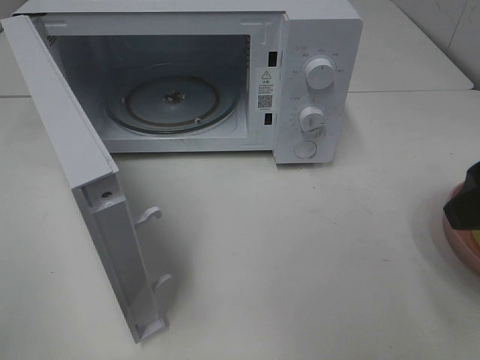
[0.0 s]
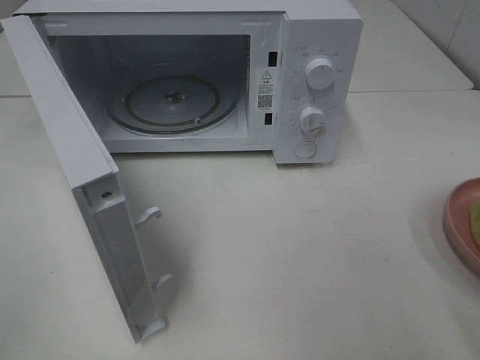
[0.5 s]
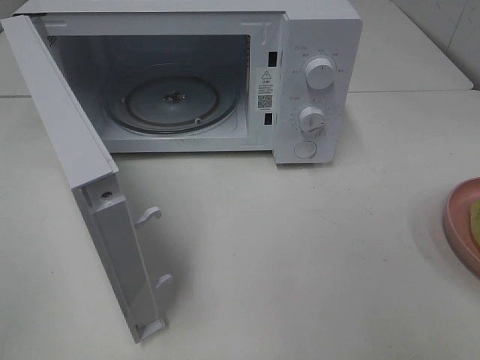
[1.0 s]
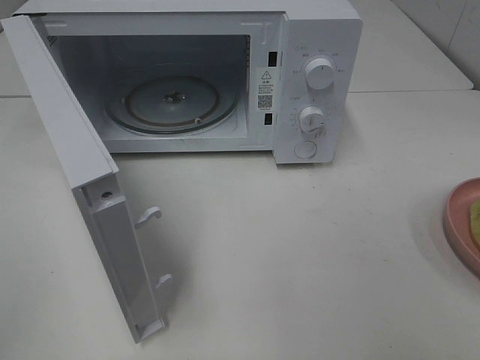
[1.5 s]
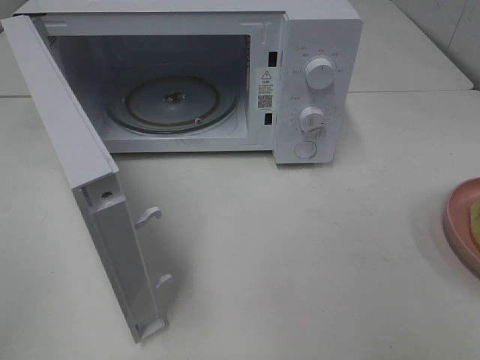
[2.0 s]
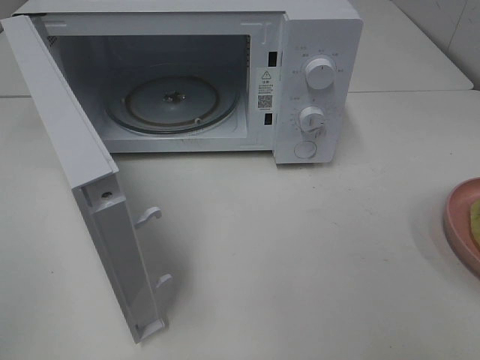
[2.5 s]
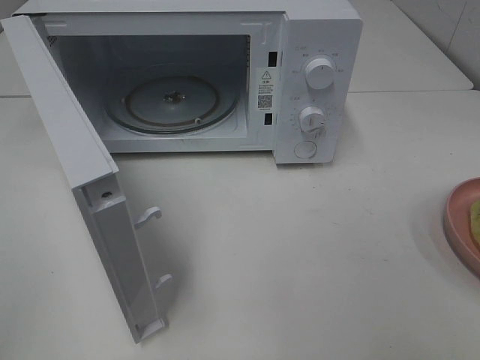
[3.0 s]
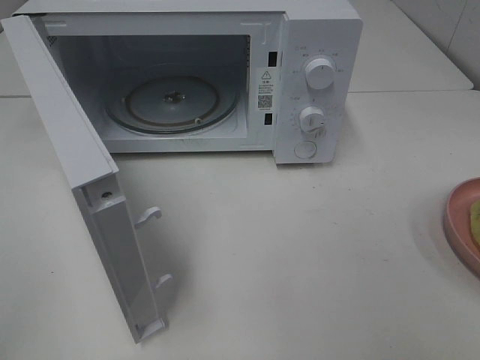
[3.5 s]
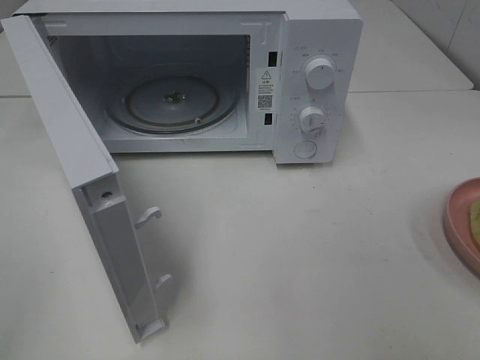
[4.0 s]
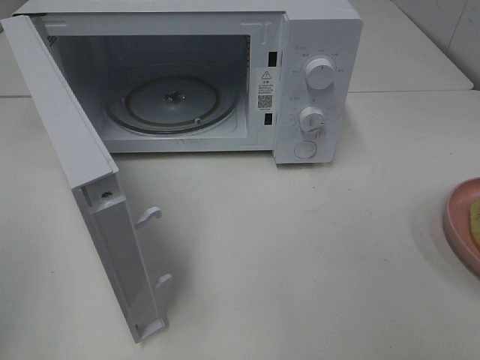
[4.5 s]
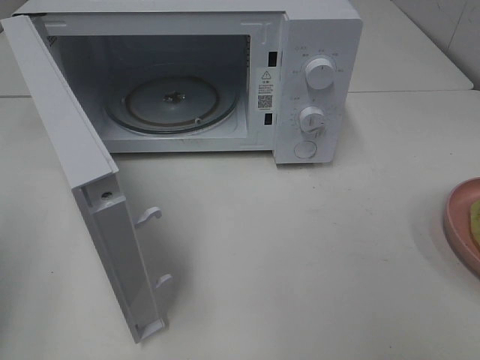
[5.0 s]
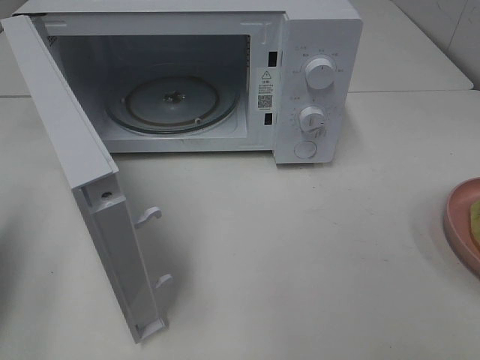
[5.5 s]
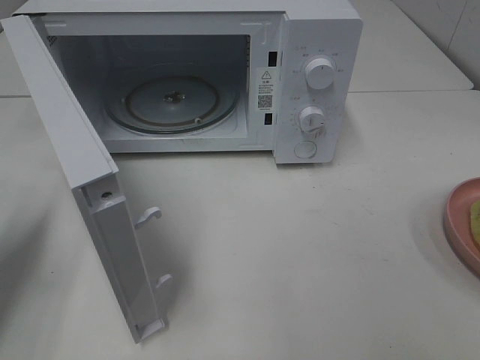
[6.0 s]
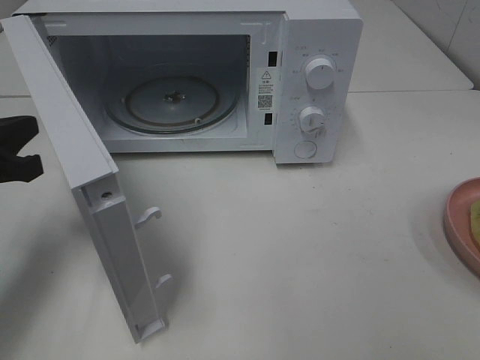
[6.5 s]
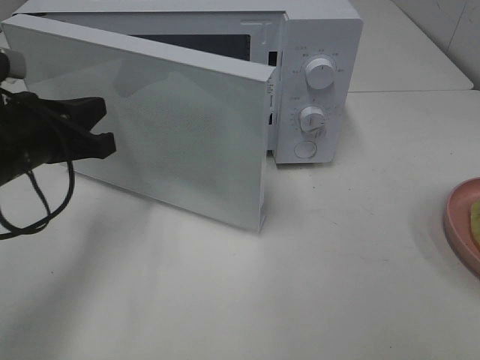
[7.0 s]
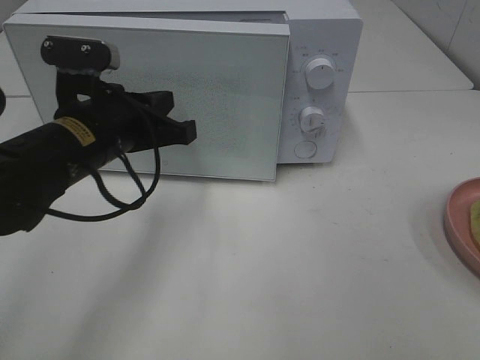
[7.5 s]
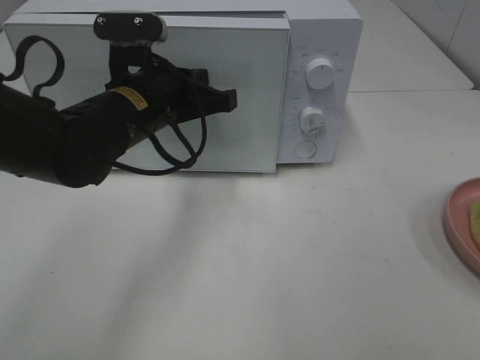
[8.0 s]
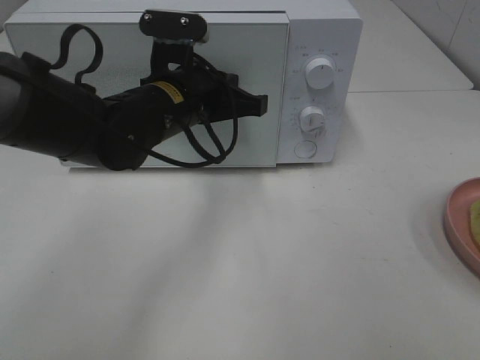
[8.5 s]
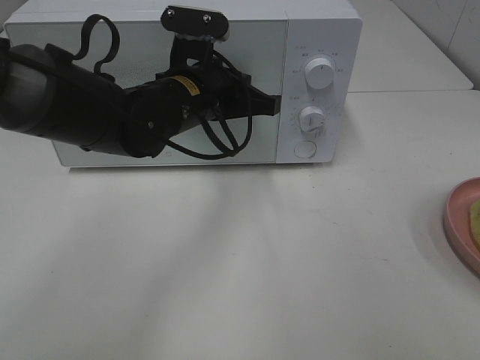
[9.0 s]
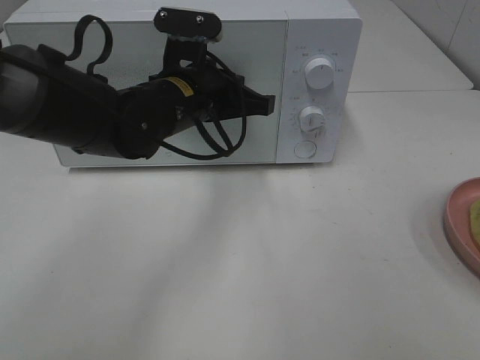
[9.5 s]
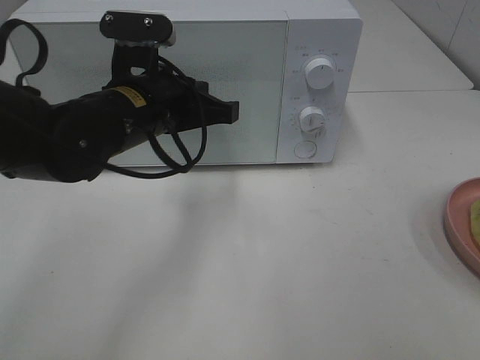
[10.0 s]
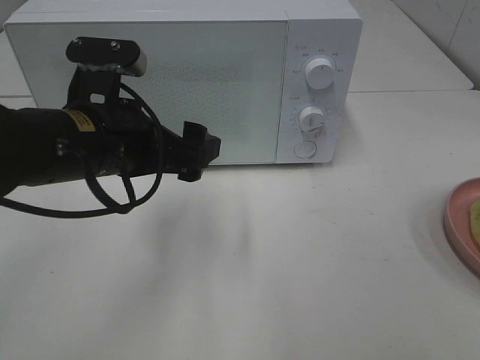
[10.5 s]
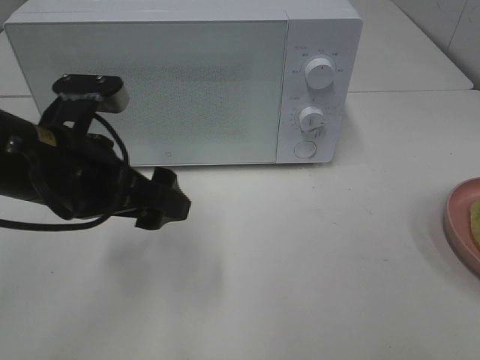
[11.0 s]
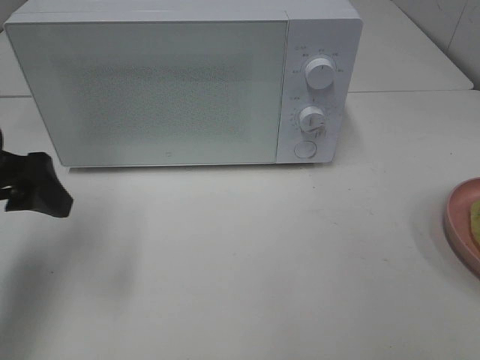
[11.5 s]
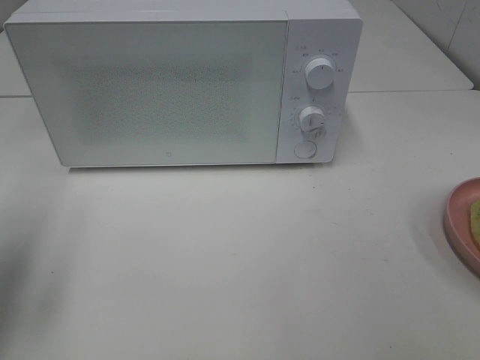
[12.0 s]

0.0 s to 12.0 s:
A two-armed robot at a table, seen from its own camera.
Task of the whole recording: Heat Sandwich.
Step, 0.0 to 9.5 s: Left hand: close the microwave door.
0.0 to 2.0 s: The right gripper moves backward, roughly 15 cm.
4.0 to 6.0 s: The left gripper moves forward and downward, roughly 25 cm, and closes up.
6.0 to 8.0 s: The left gripper shifts roughly 25 cm to the right and forward.
8.0 to 10.0 s: The grippers move only a little.
10.0 to 12.0 s: The left gripper goes roughly 25 cm to the left and backward, and opens.

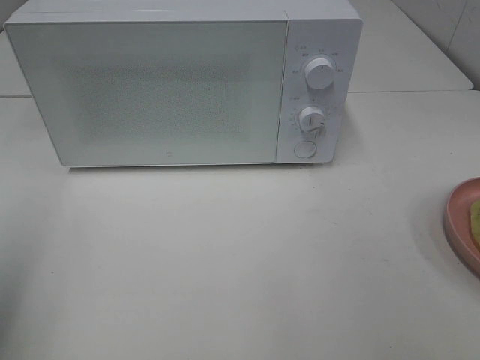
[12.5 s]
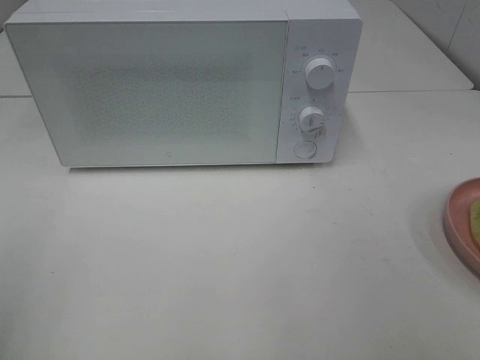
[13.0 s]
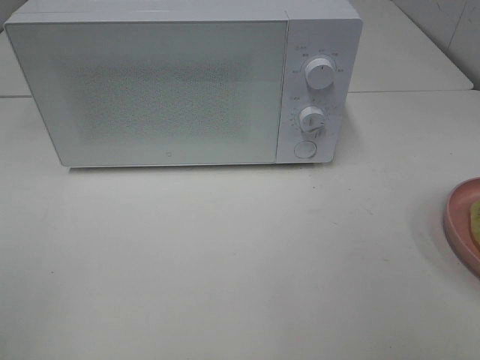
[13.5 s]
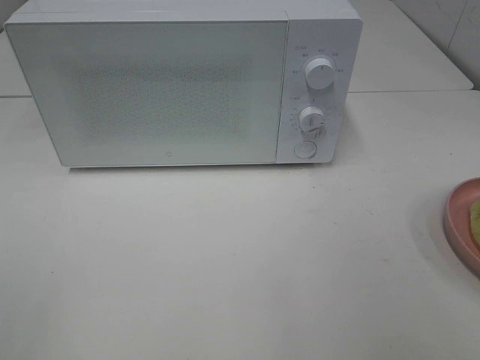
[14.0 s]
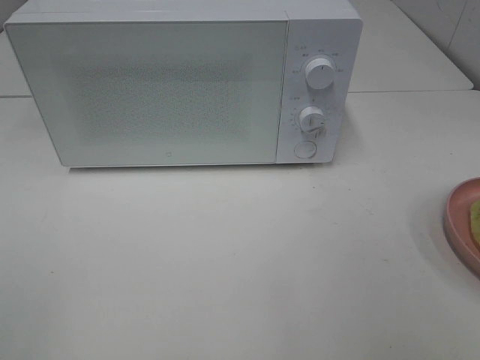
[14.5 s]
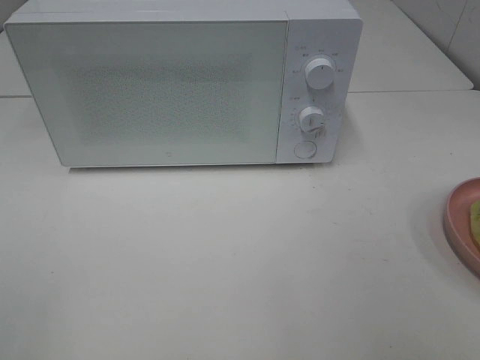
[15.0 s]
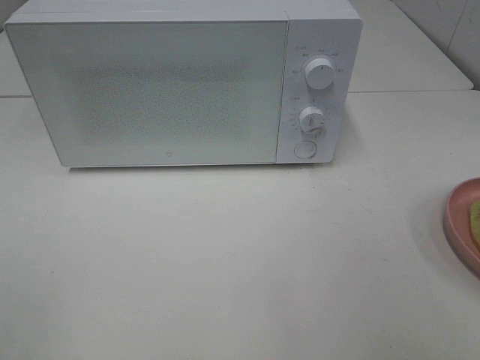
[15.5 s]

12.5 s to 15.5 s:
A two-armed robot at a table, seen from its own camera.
Task of the whole recording: Heat Sandwich.
12.5 to 14.0 s: The left gripper heads backward, covering roughly 15 cm.
14.0 to 15.5 s: Both grippers stay about where they are.

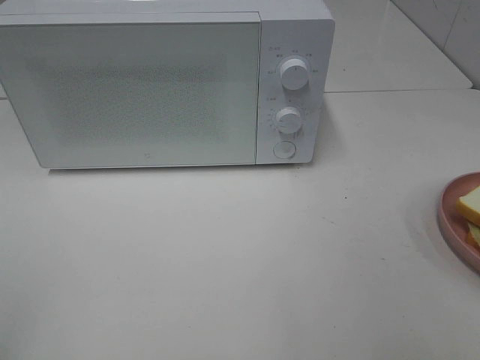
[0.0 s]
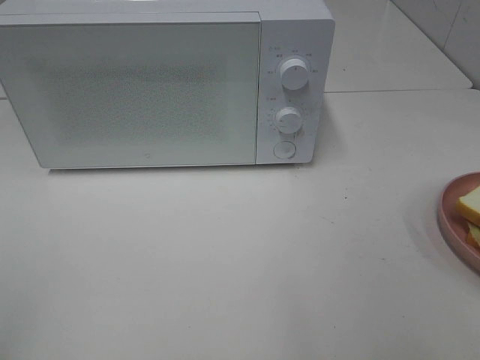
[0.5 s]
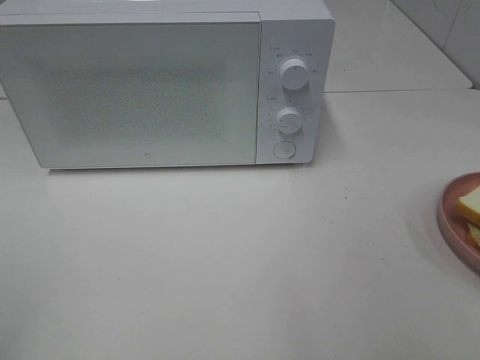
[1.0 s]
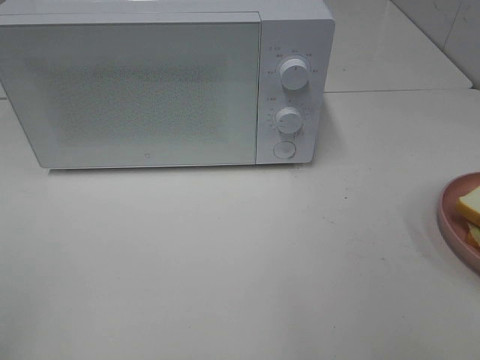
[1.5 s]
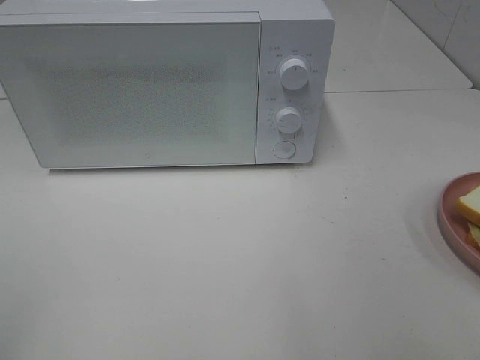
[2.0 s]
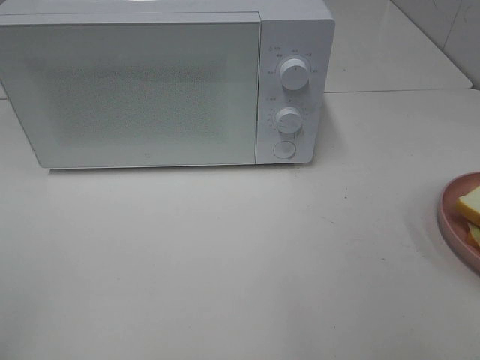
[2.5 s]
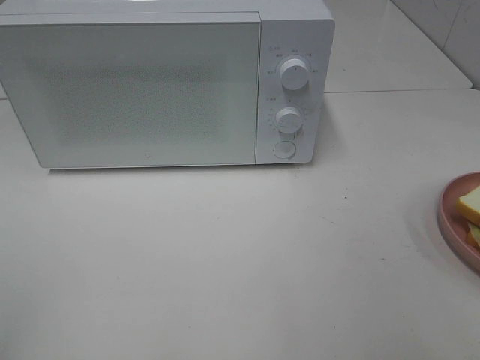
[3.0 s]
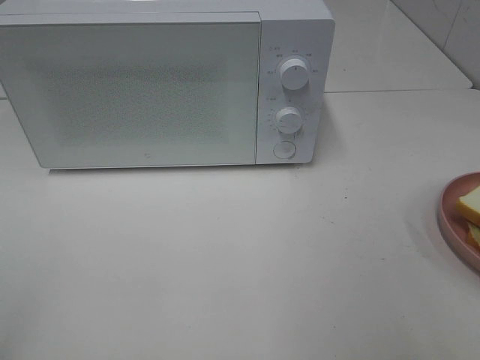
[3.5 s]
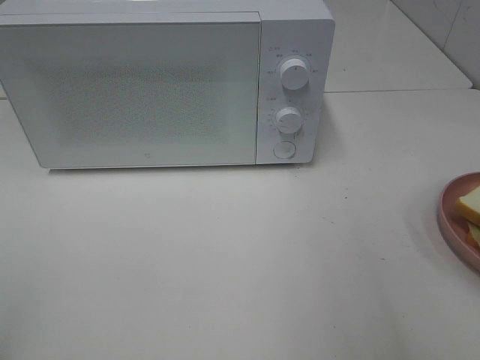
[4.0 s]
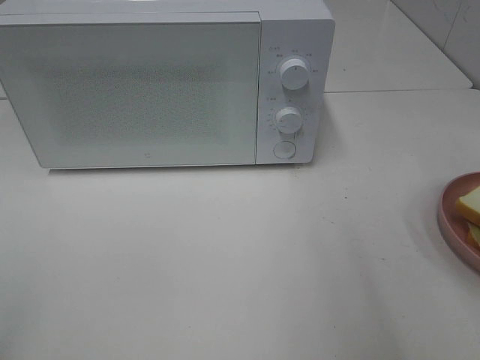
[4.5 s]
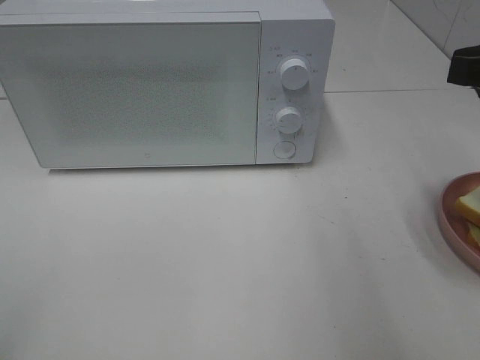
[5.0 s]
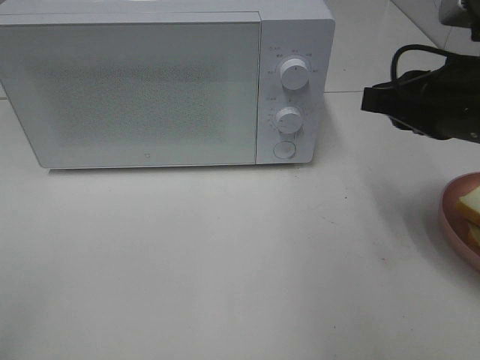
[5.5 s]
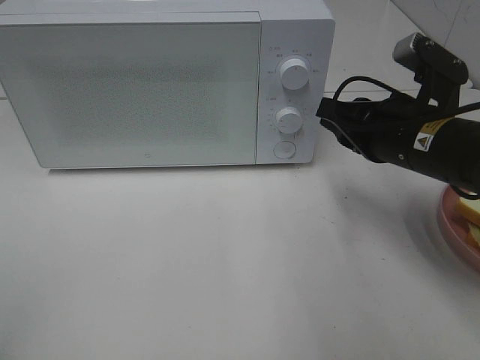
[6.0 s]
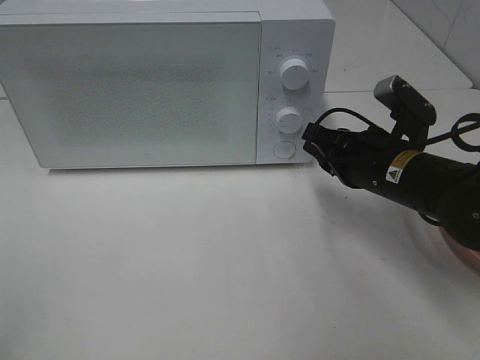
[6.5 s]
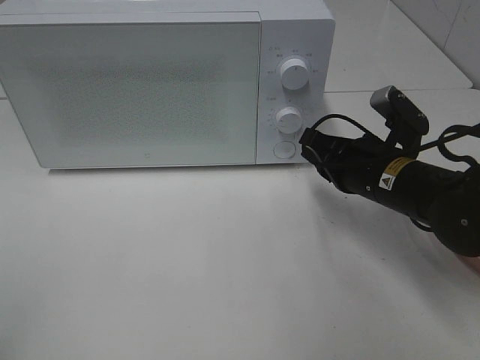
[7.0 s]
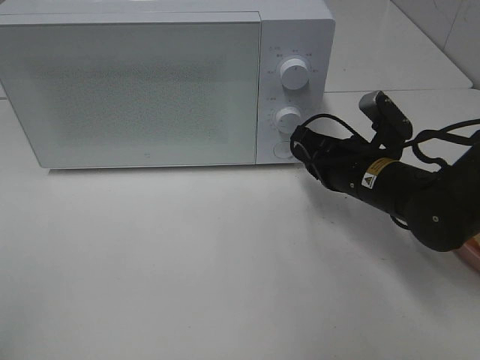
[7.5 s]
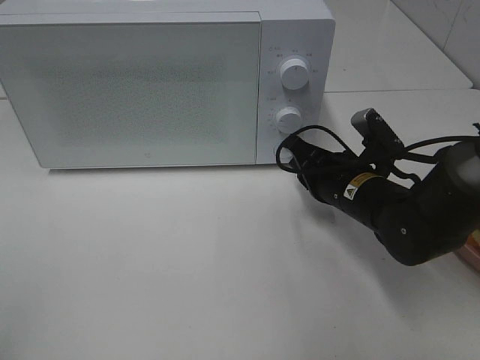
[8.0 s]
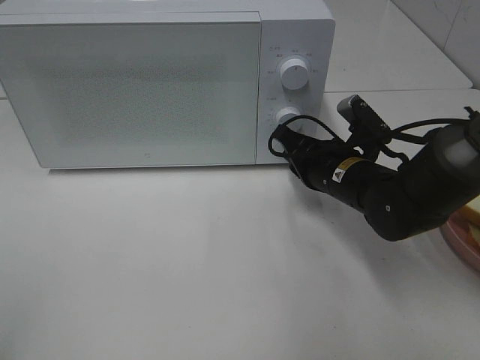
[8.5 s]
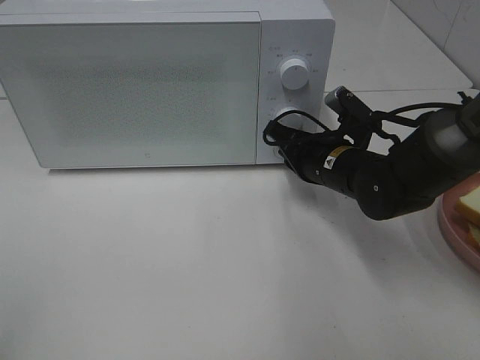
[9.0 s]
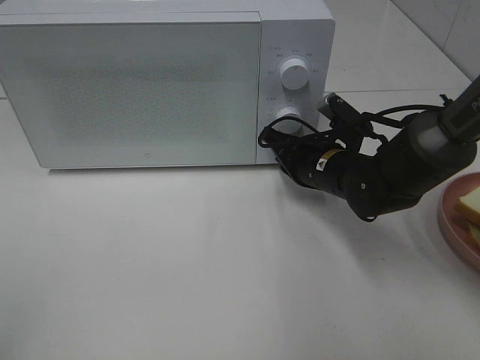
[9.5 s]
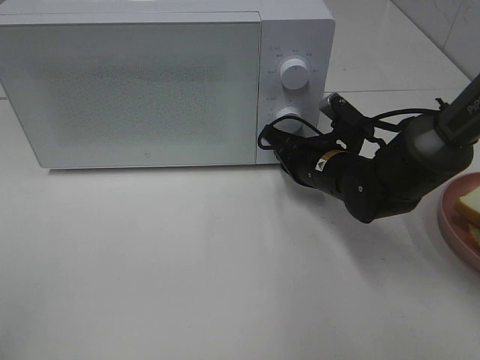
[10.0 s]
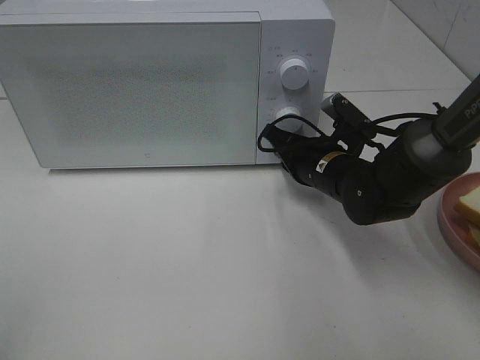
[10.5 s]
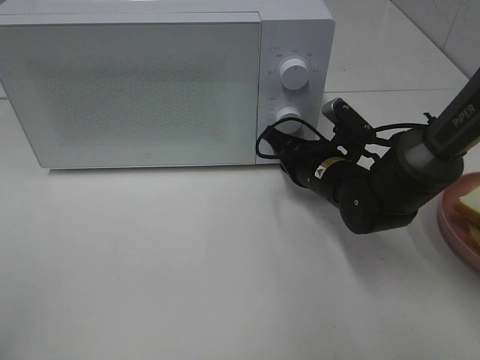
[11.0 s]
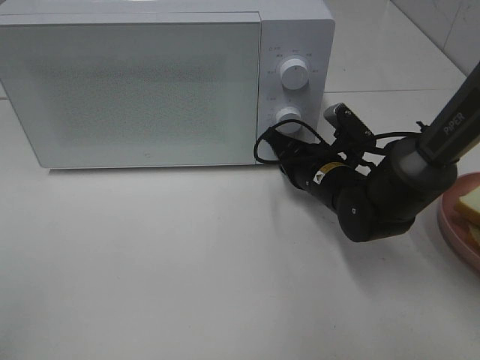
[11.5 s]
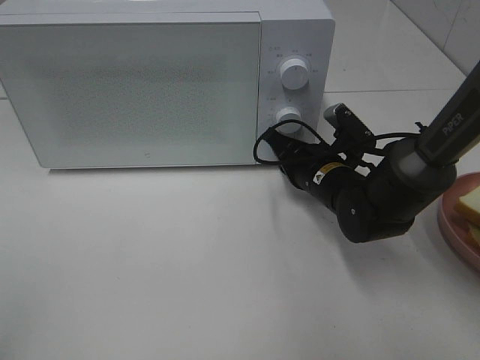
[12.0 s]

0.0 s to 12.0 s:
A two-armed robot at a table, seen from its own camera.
Task of the whole recording: Heat Sandwich.
0.0 to 2.0 s: The two grippers keep their place.
4.0 to 6.0 s: The right gripper heads forward, downward and to the left, covering approximately 20 cm.
6.0 to 8.0 s: The right gripper goes roughly 10 cm downward.
8.0 to 10.0 s: The right gripper changes place by about 5 cm.
10.0 to 12.0 s: There are only small adjustments of the grippers.
